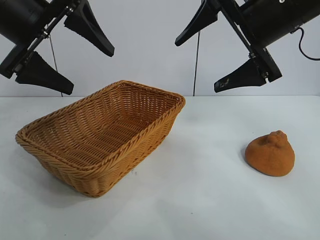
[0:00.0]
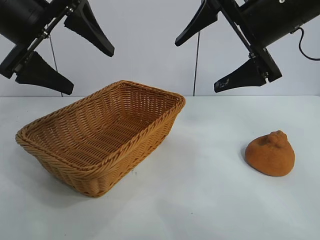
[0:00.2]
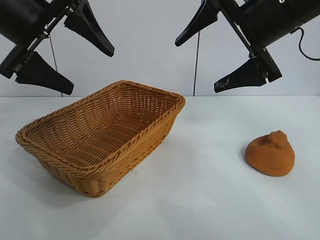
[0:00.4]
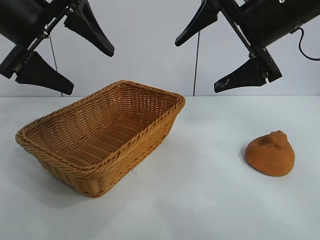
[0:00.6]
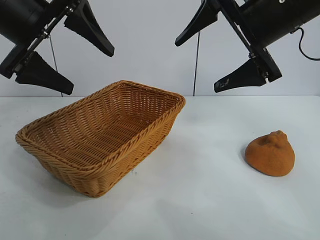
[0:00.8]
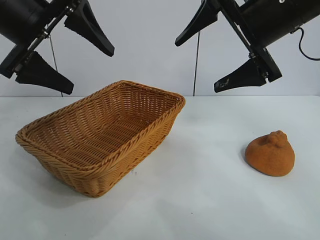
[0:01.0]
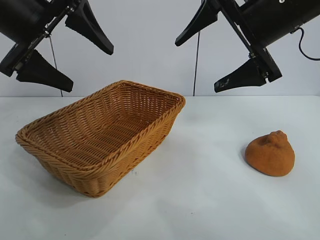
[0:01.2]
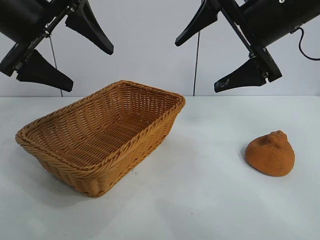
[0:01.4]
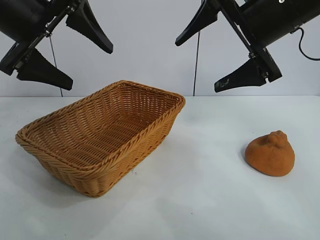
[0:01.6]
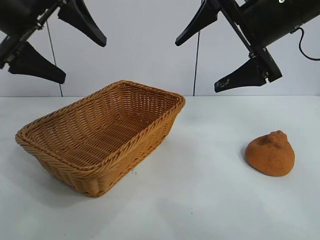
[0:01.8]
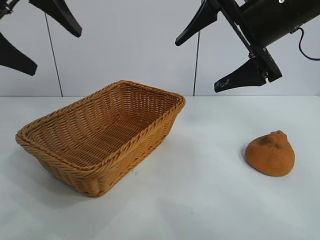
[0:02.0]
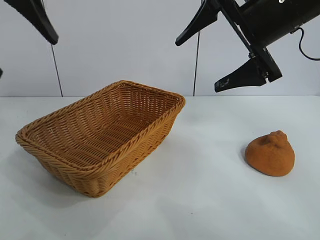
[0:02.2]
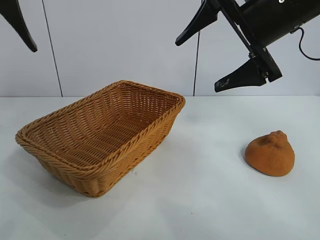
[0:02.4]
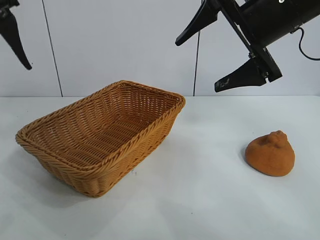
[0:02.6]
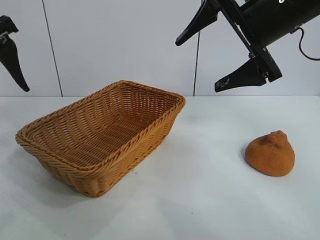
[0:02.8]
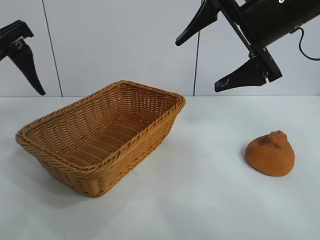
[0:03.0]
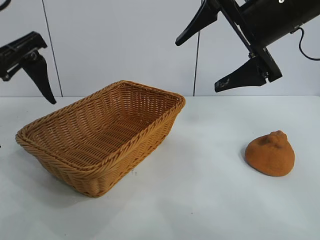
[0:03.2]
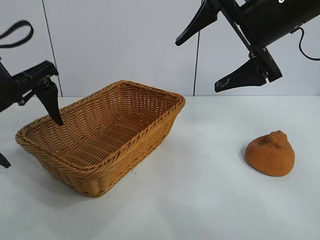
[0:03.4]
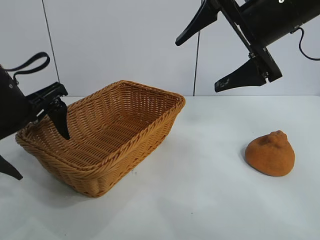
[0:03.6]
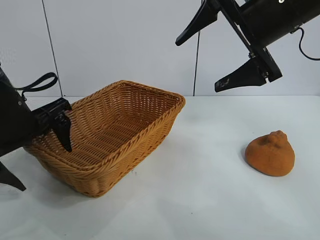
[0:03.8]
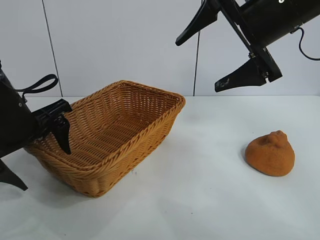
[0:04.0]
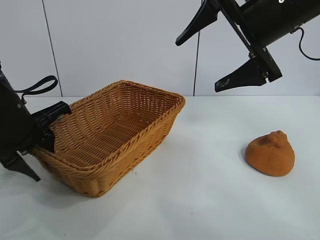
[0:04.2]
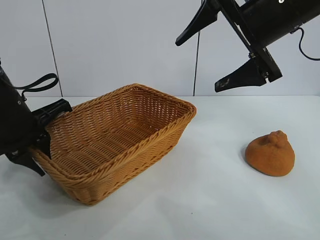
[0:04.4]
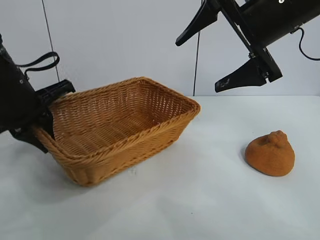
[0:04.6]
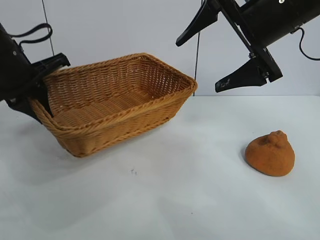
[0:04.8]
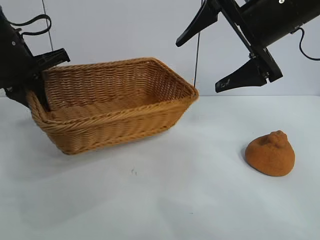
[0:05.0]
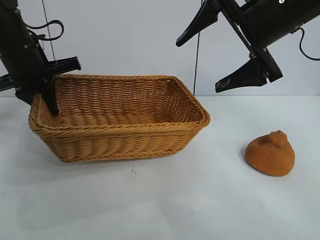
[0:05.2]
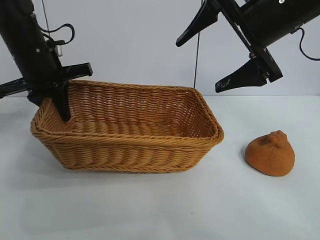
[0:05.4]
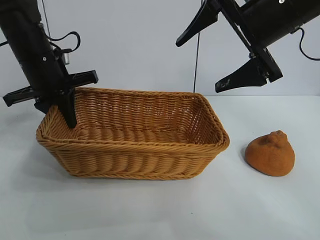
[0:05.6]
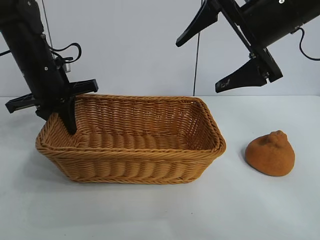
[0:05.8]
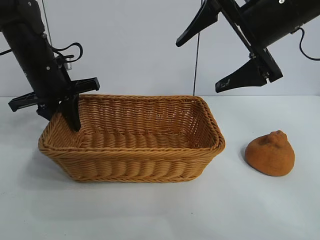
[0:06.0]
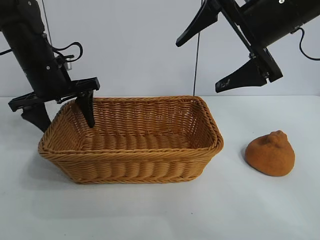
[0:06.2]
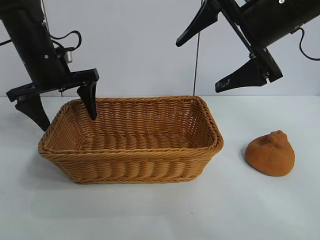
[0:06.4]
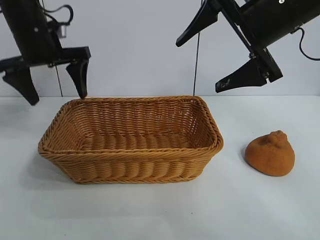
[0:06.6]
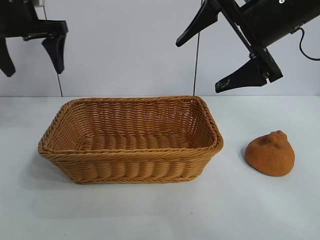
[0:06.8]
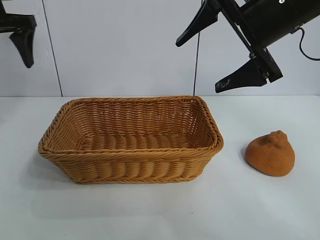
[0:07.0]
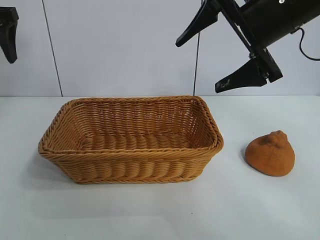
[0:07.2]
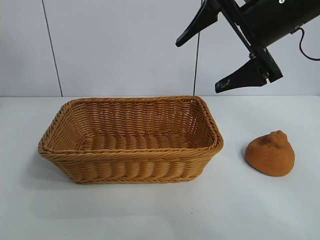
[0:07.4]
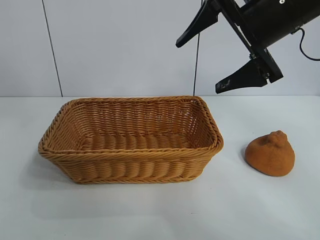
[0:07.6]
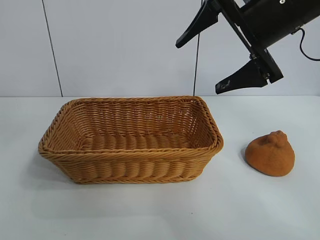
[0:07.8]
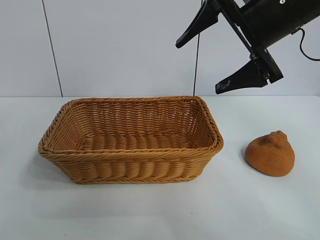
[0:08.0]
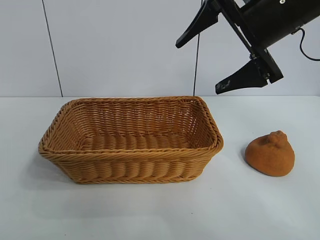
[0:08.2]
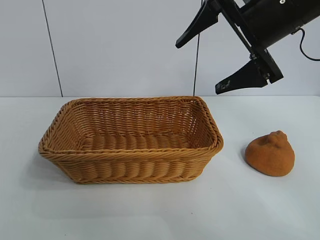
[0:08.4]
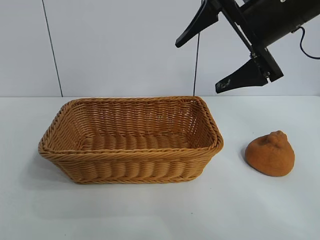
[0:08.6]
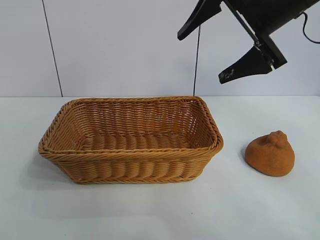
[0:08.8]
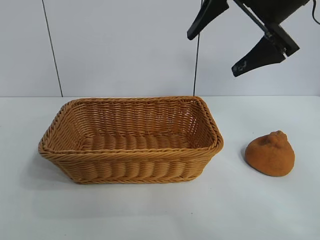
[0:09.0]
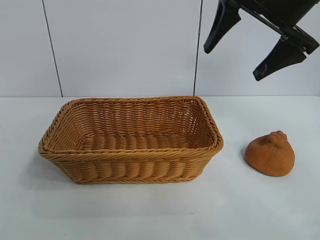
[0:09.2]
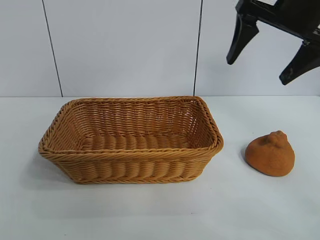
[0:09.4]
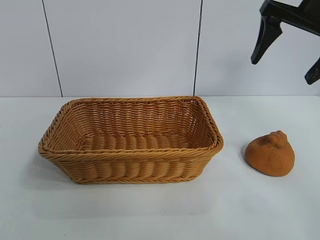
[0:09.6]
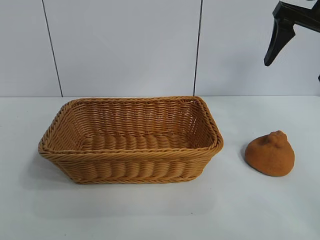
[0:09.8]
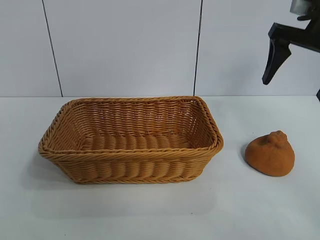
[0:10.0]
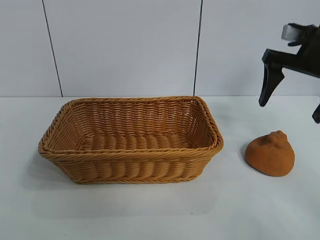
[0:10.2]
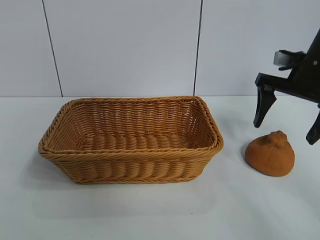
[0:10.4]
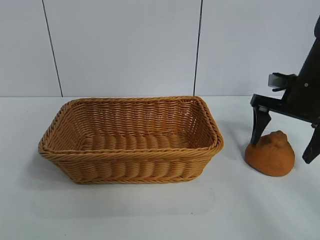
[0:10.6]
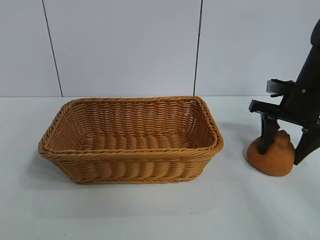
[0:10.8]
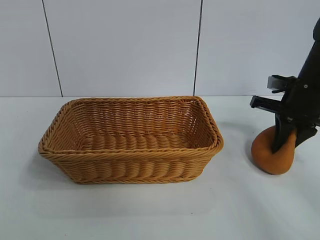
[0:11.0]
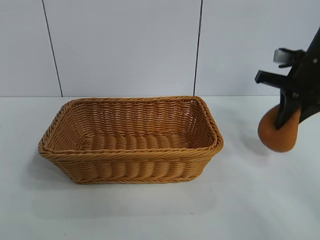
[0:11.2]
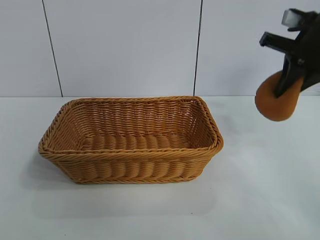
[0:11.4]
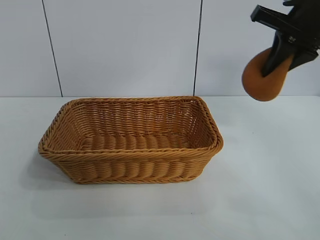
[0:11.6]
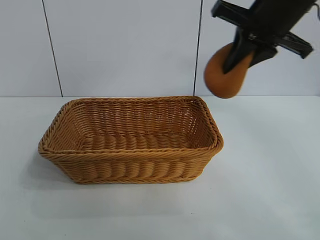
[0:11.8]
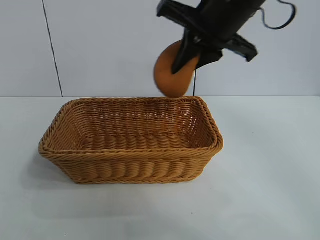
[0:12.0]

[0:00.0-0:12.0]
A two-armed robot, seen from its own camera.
Task of the whole recording: pick up the orange and put it into the basket.
Step, 0:01.0 to 0:04.4: Grasp the basket with left gripper.
Step, 0:04.6 to 0:06.0: Place the basket in the center of view with left gripper.
Step, 0:06.2 to 0:10.8: Grasp the orange with right gripper.

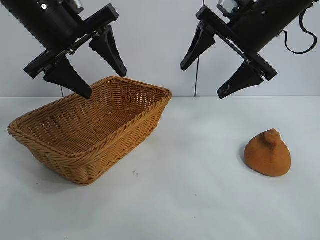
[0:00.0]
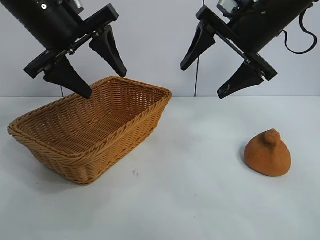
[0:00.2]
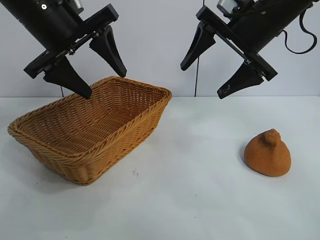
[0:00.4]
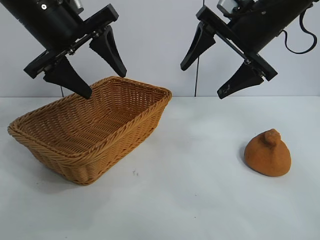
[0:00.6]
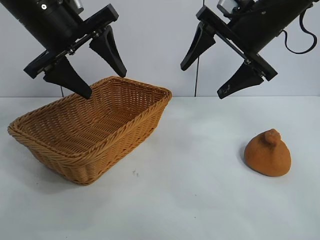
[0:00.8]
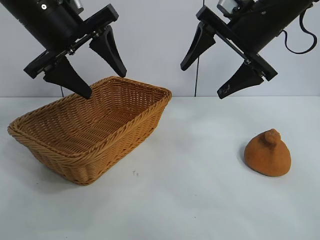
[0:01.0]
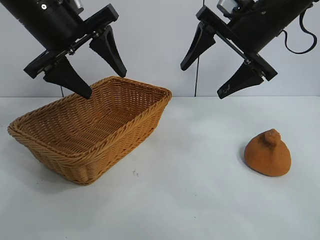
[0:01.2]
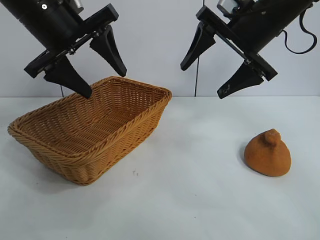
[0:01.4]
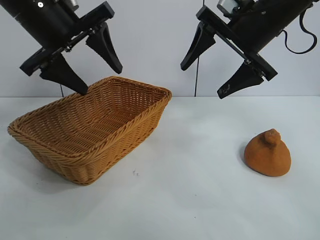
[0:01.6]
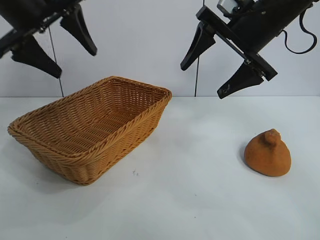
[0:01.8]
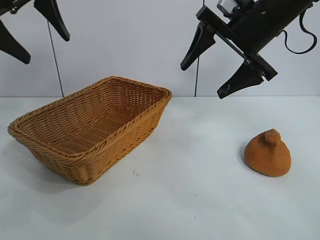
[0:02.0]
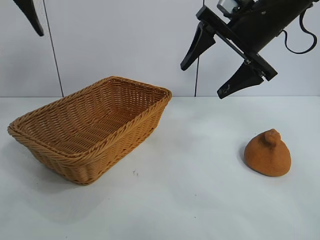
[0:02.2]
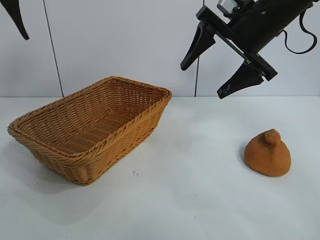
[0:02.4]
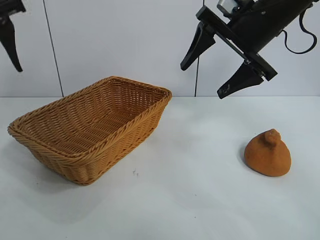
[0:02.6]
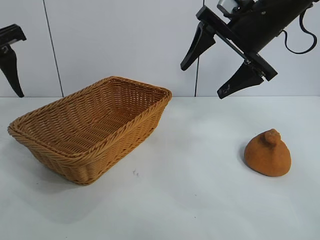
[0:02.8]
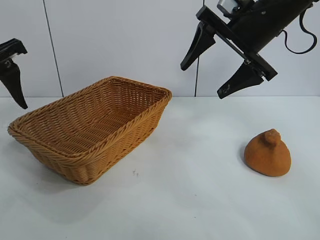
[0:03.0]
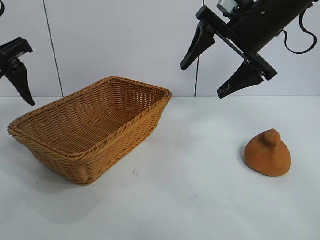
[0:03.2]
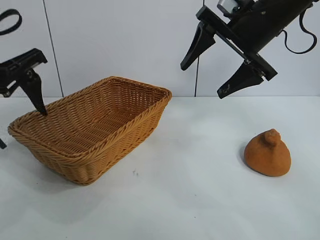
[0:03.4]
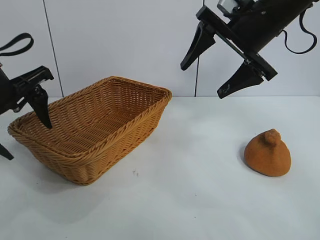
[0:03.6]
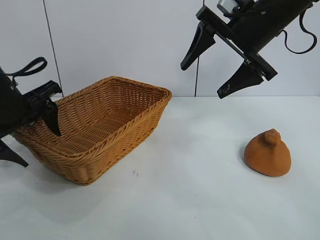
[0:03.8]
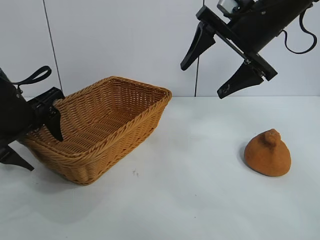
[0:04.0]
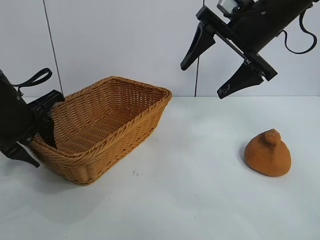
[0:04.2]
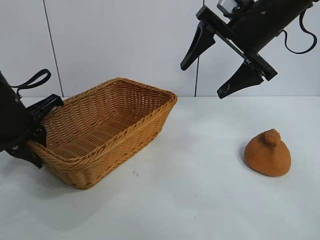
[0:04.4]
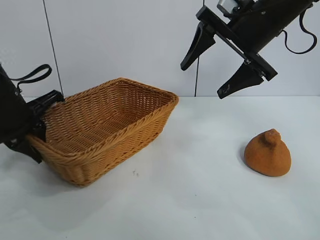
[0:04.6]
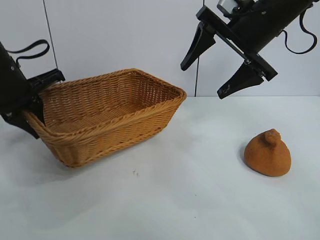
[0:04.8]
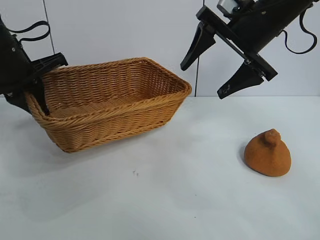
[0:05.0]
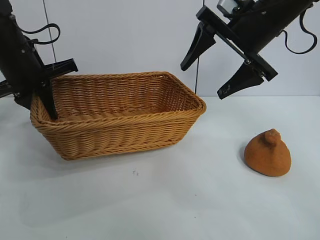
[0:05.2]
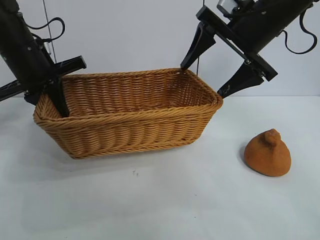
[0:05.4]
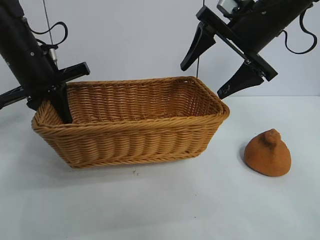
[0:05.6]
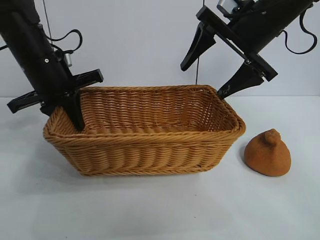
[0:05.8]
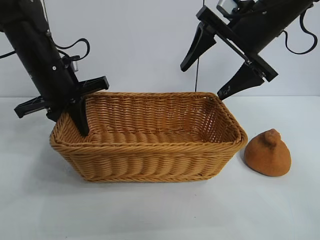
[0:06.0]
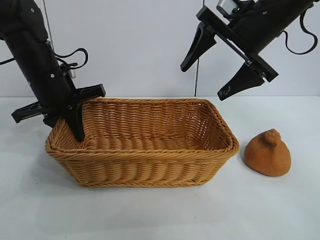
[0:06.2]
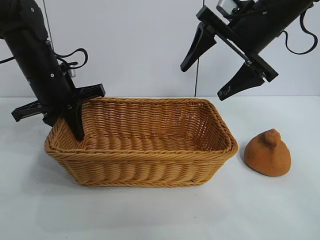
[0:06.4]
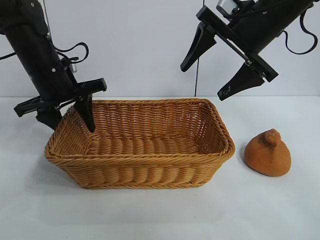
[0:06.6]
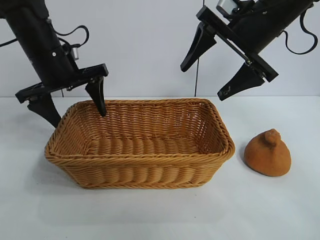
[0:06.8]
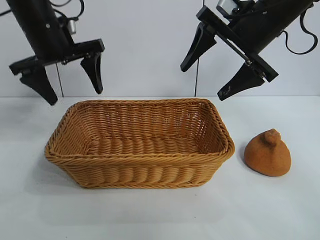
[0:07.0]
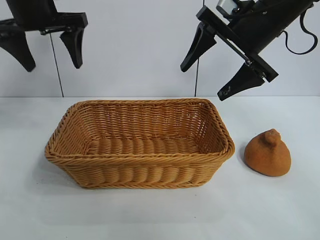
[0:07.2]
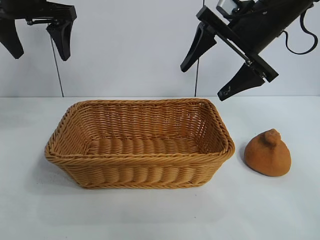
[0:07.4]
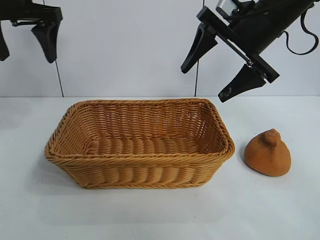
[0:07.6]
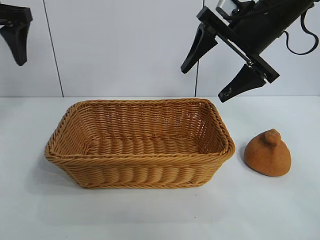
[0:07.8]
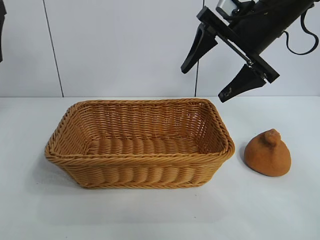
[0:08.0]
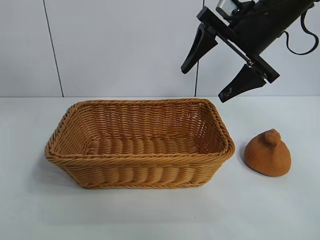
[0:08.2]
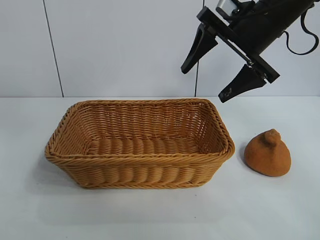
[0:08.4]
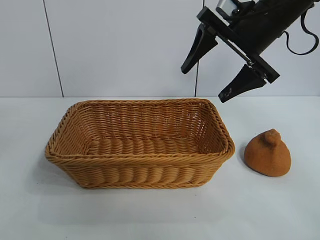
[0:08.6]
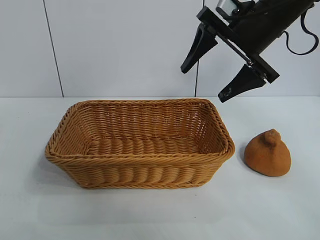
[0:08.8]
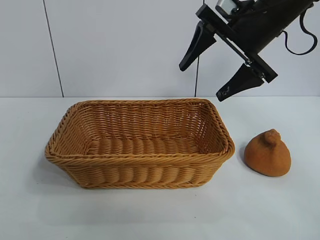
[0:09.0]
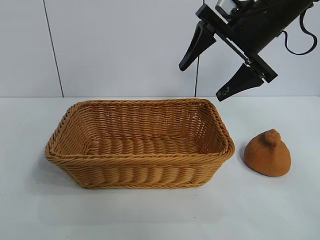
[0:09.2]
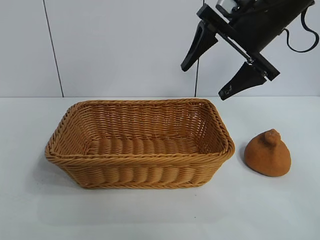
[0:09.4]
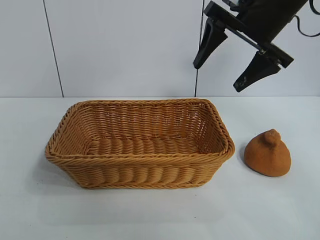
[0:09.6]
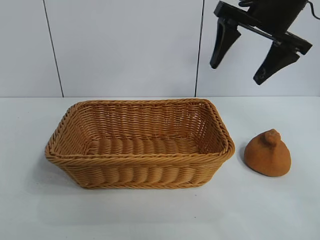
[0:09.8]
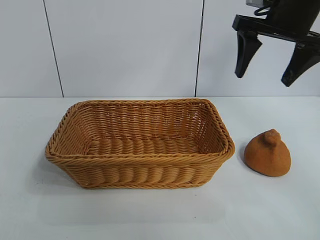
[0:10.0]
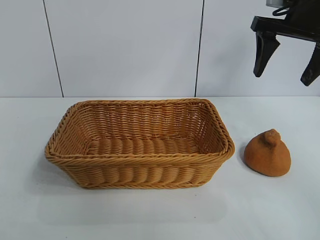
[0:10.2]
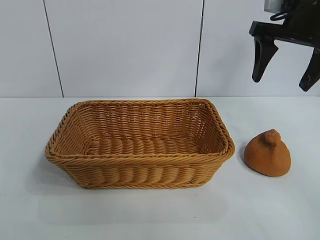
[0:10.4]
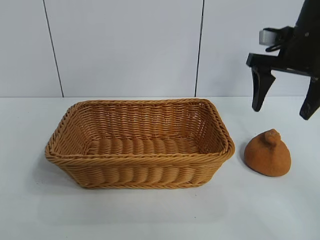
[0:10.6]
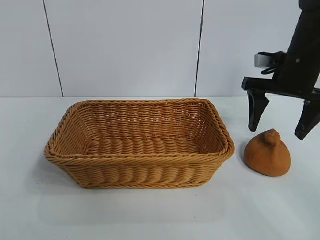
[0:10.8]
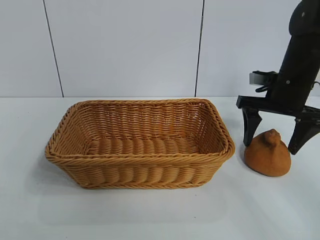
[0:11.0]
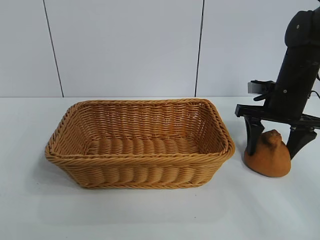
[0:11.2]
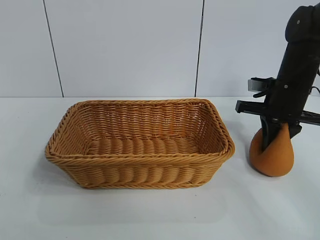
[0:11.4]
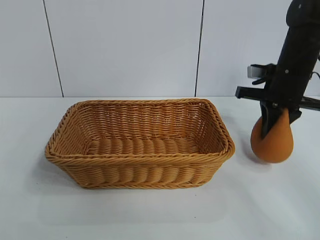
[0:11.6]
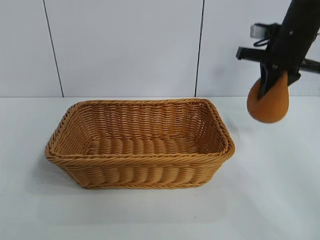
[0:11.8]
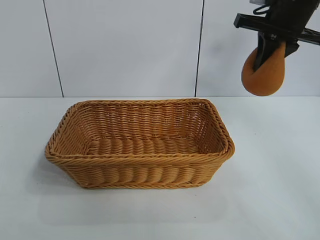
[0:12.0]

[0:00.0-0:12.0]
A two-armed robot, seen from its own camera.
Task of the whole recording: pick up the orange and put it into the basket.
Step, 0:01.0 to 0:04.4: Grasp the basket with left gripper.
Step, 0:04.6 to 0:06.8: Place the basket in the center of view with left gripper.
Step, 0:07.0 to 0:11.2: Grasp the orange with right gripper.
